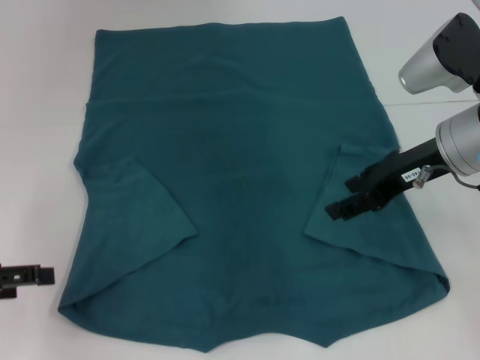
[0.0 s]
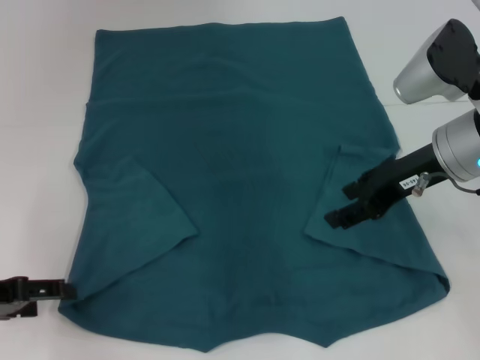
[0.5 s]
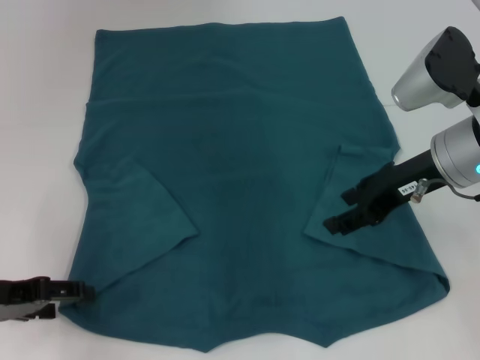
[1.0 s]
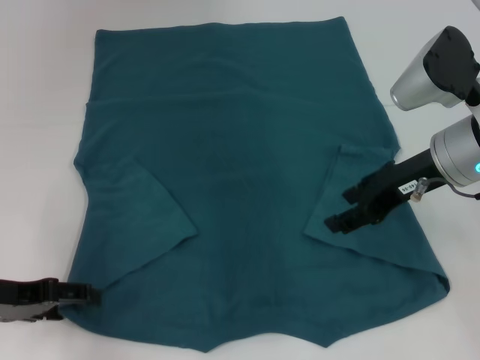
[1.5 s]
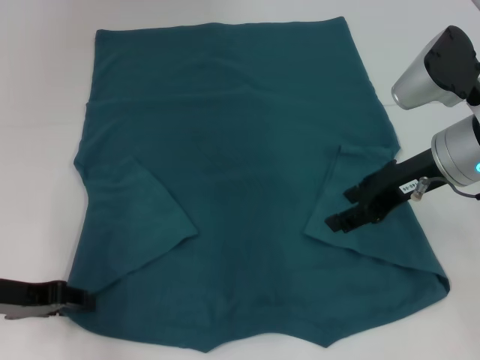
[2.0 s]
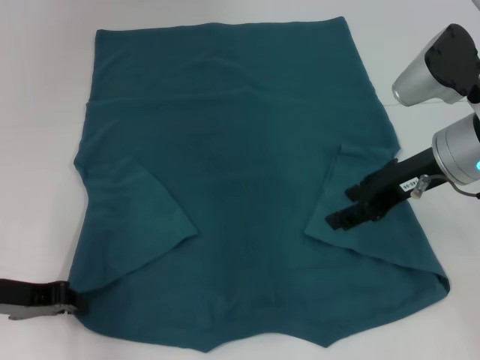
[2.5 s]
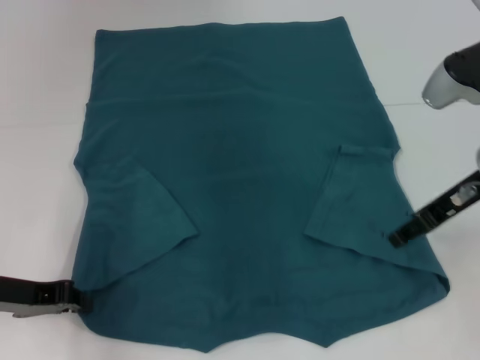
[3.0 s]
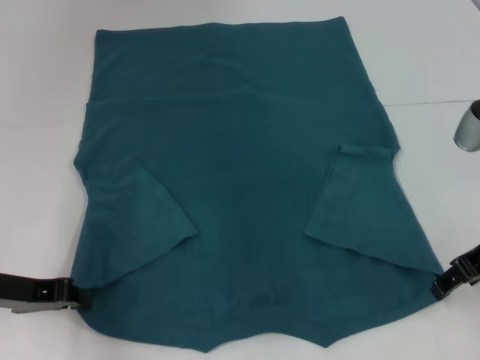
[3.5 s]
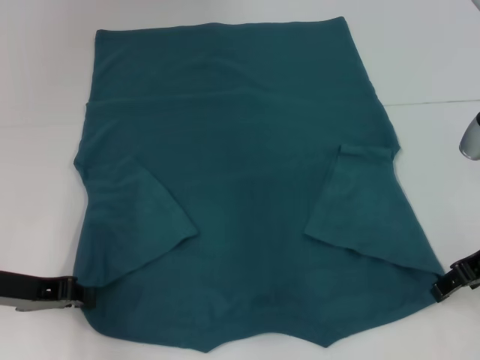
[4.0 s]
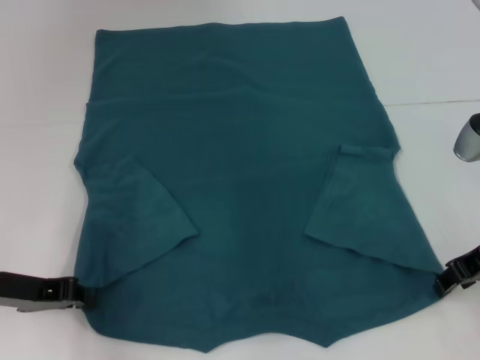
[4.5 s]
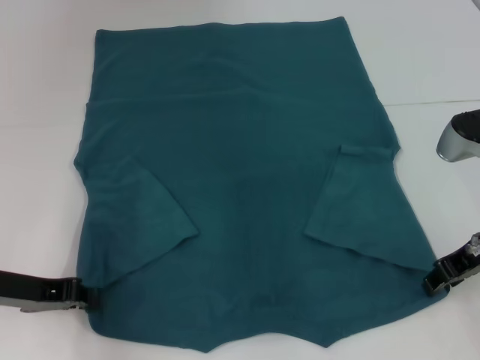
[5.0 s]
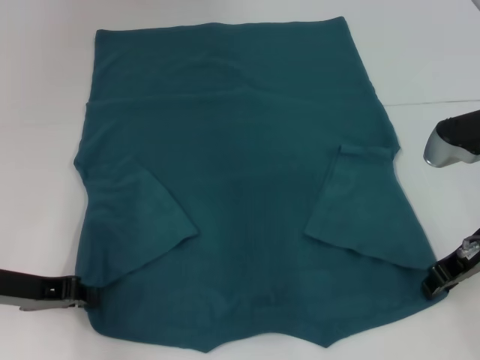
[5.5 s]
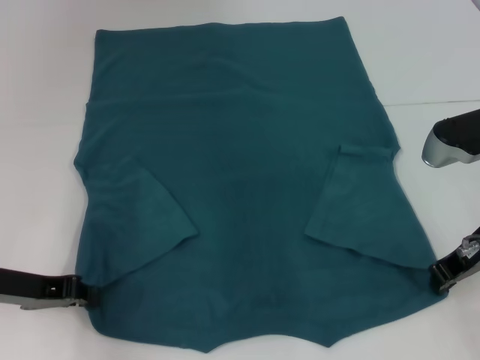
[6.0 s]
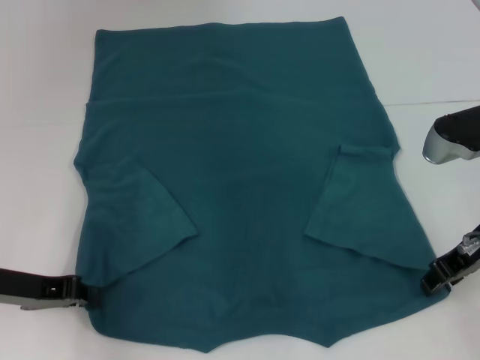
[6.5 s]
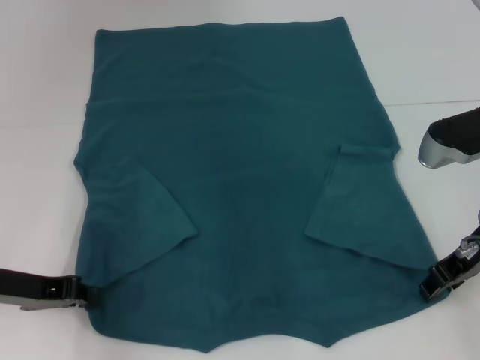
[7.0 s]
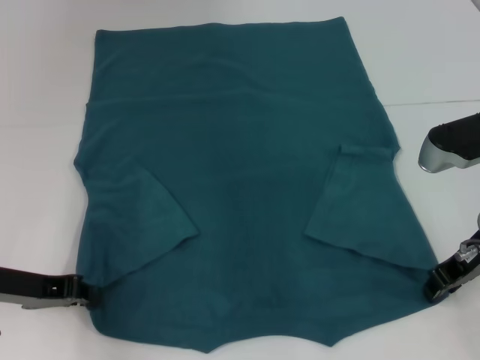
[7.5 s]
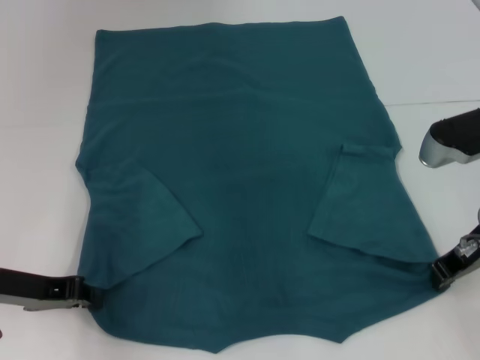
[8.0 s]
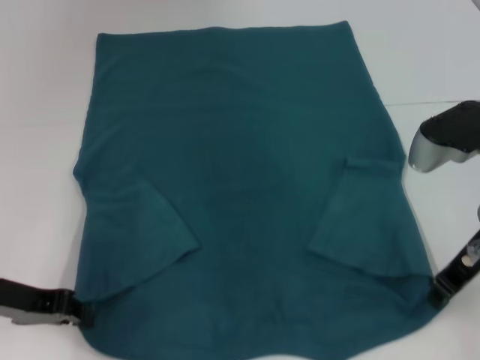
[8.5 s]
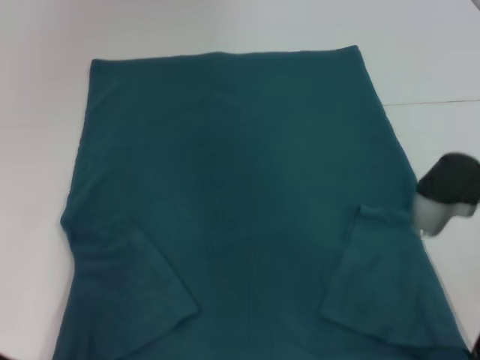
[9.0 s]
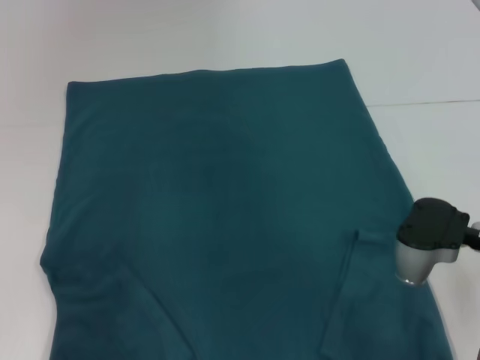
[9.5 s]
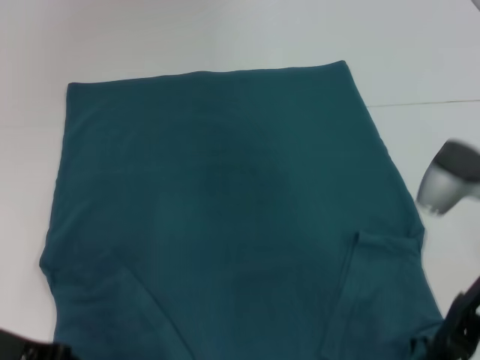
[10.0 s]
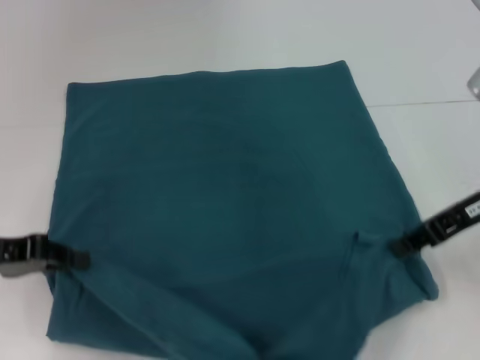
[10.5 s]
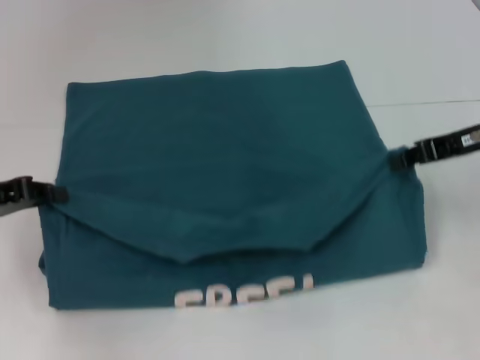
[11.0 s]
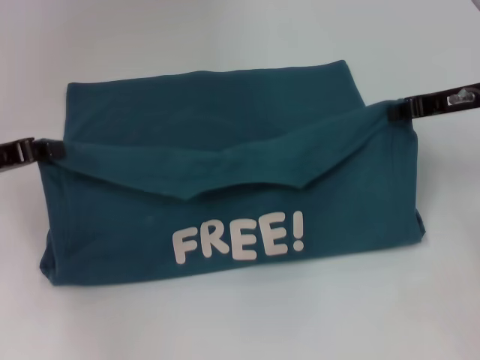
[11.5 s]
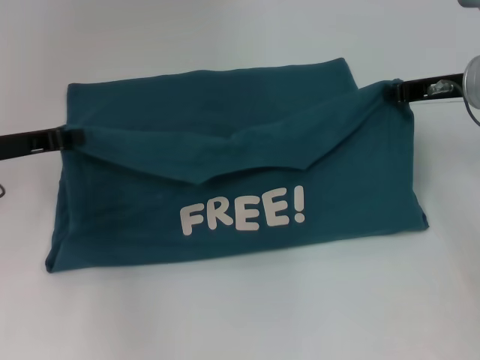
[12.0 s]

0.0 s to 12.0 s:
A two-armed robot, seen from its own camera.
Step, 0.0 to 2.5 s: Grab the bottom left corner with your left hand.
Step, 3.0 to 8.0 s: Grab the bottom right corner with your right hand.
0.0 to 2.0 s: The left gripper is displaced to the right by some 5 cm.
2.0 to 4.0 s: The right gripper is displaced to the right by some 5 cm; the left gripper closes.
4.0 to 6.0 s: The right gripper closes its fingers.
6.0 to 8.0 s: The right gripper opens, then closes again.
8.0 to 10.0 s: The right gripper ends up some 5 cm from where it was.
10.0 to 12.0 s: The two grippers go roughly 10 cm forward.

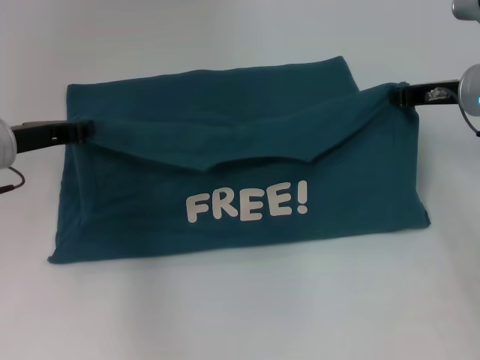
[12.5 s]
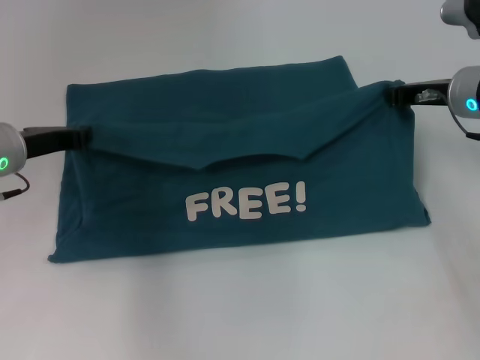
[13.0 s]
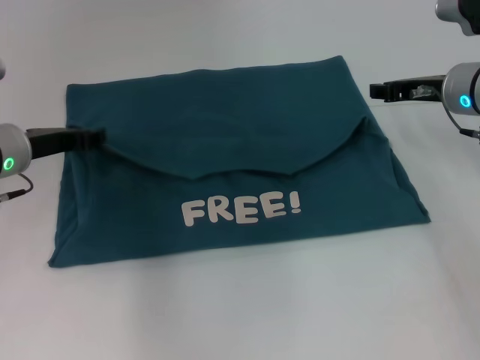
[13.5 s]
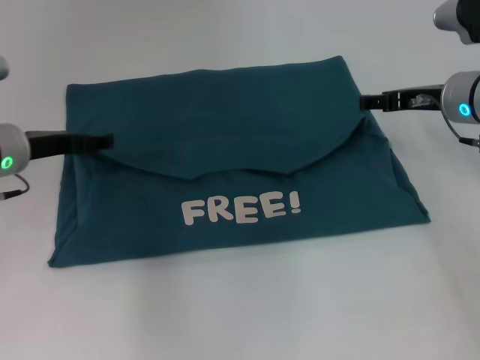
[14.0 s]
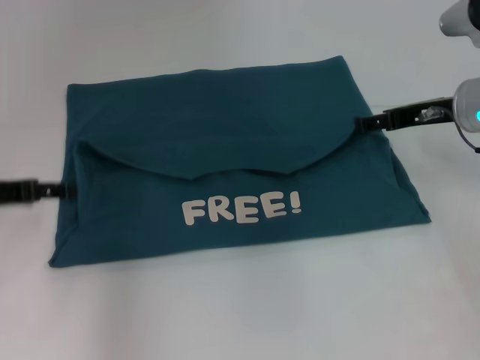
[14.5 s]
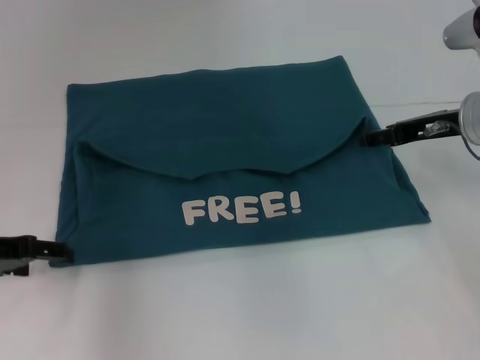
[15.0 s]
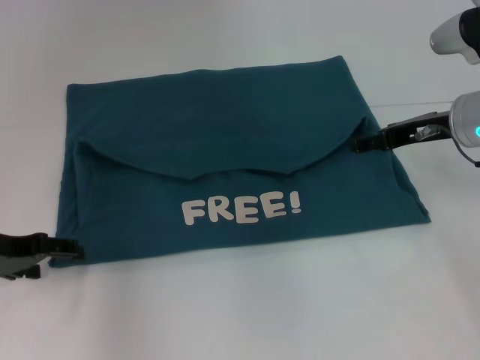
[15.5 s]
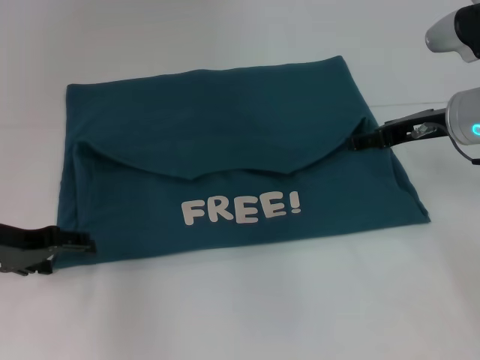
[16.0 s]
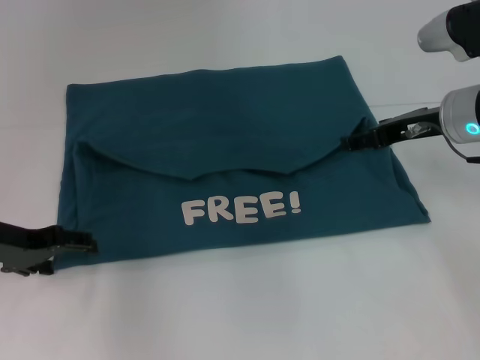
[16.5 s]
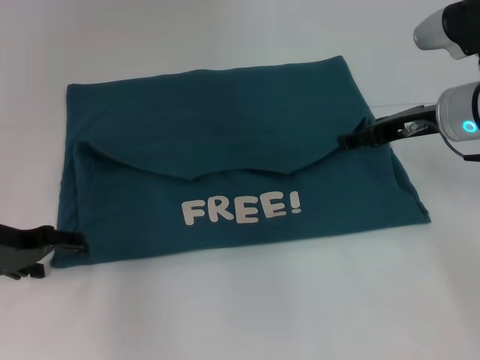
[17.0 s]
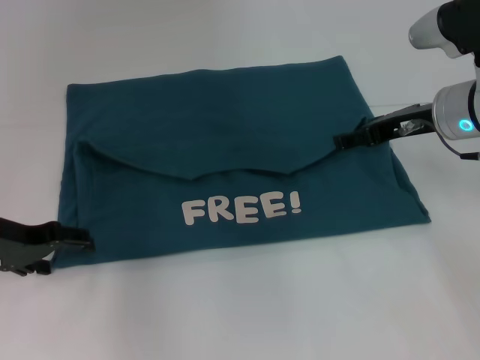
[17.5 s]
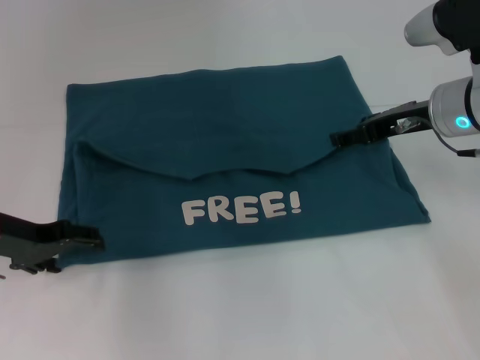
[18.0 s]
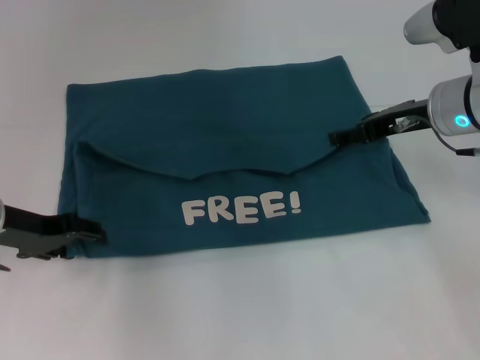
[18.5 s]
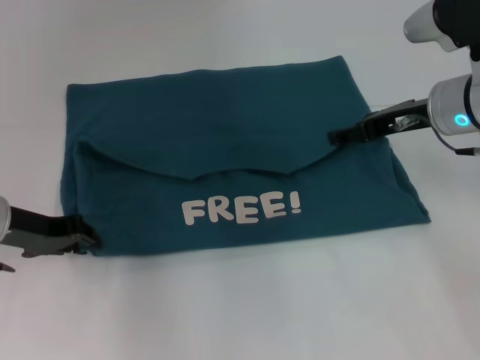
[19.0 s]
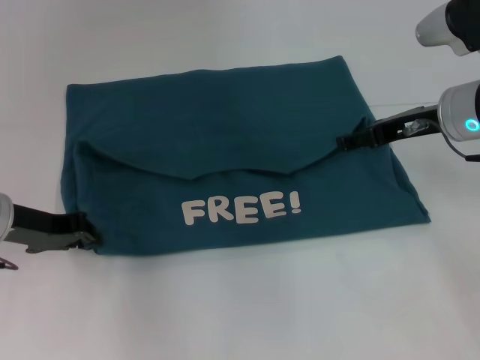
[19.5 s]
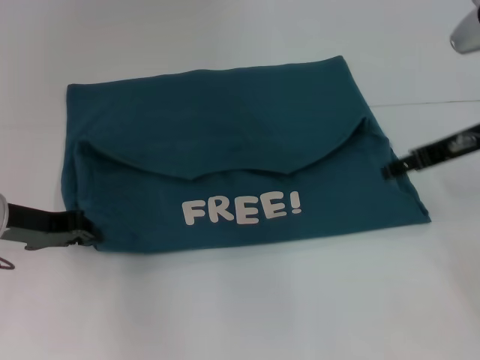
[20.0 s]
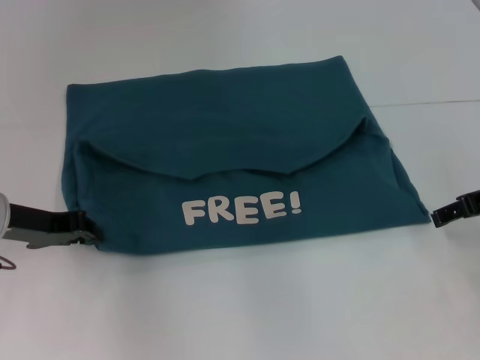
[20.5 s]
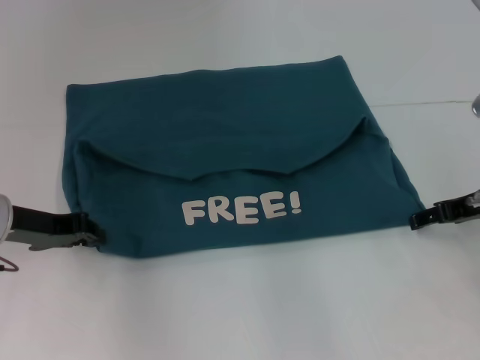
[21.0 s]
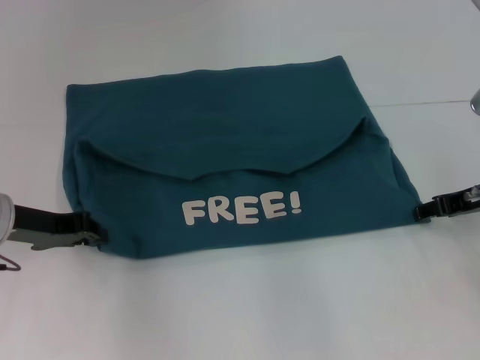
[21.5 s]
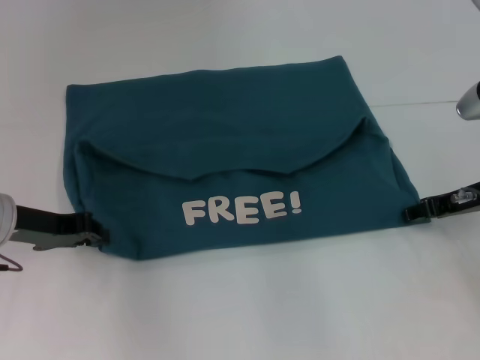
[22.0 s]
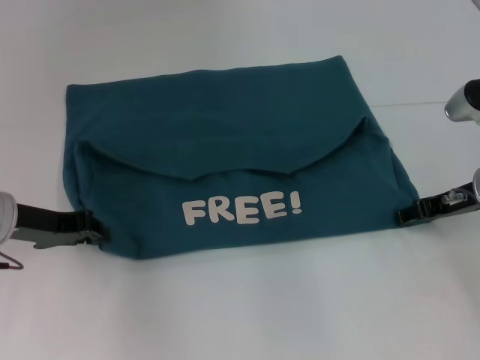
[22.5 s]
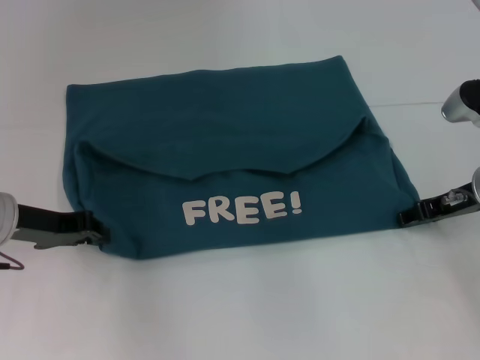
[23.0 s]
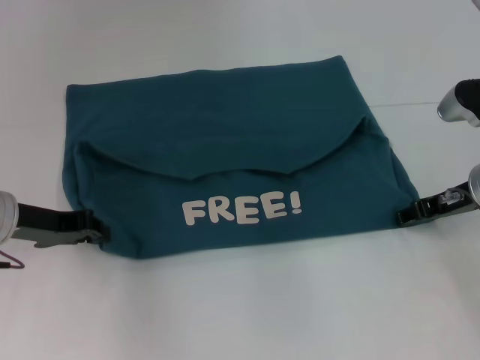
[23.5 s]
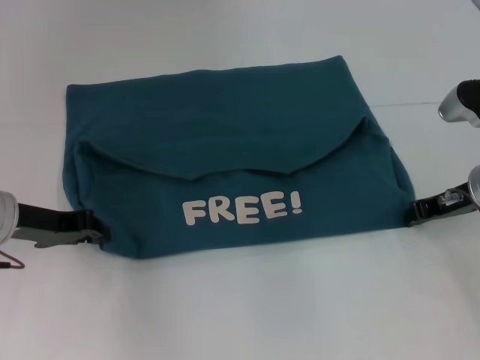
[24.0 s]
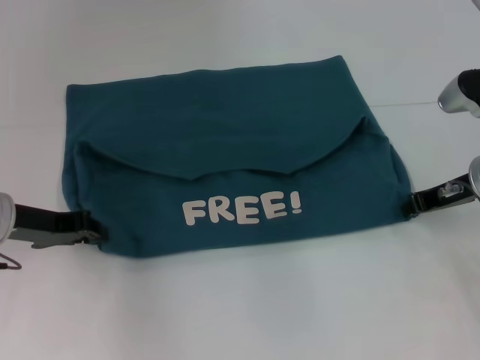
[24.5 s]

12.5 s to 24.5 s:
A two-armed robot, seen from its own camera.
12.5 to 14.5 s: The left gripper moves roughly 5 cm, and opens, while the right gripper opens its fingers.
16.5 to 18.5 s: The grippers move only a little.
18.5 to 20.5 s: The right gripper is displaced to the right and backward by roughly 10 cm. The left gripper closes.
20.5 to 22.5 s: The right gripper is displaced downward by some 5 cm.
22.5 to 24.5 s: The right gripper closes its fingers.

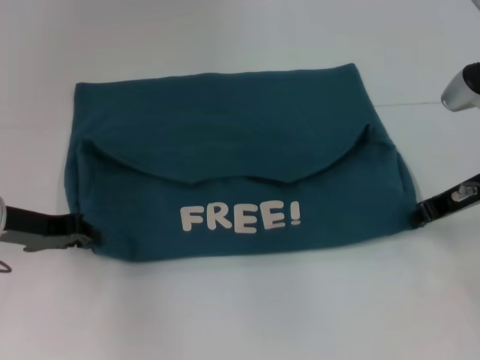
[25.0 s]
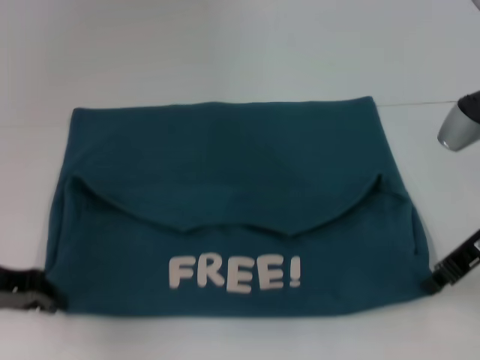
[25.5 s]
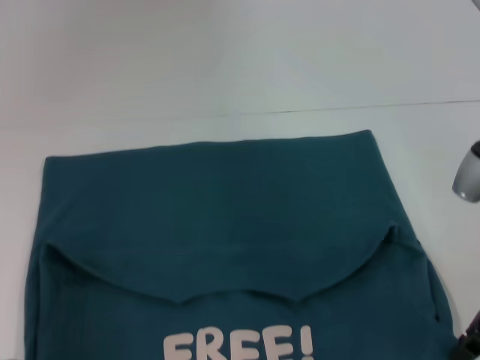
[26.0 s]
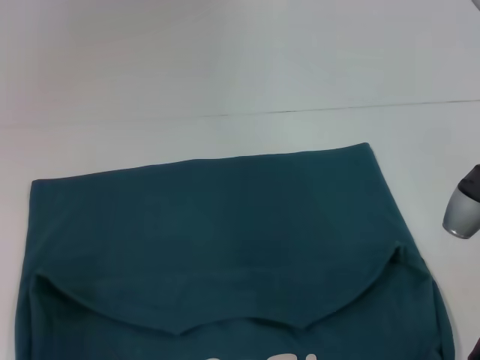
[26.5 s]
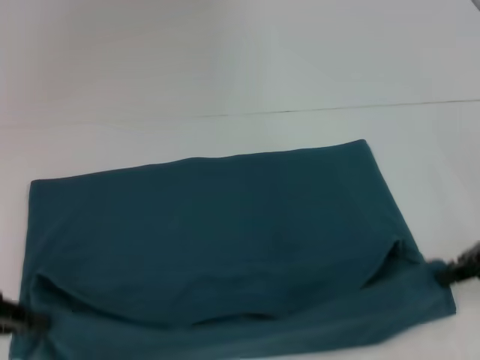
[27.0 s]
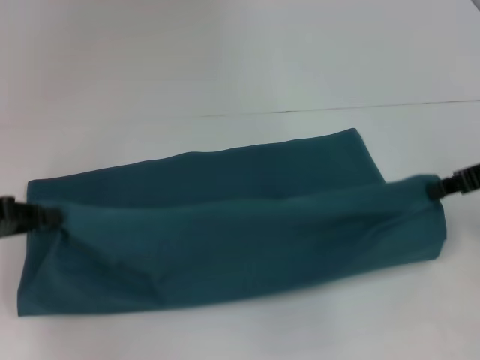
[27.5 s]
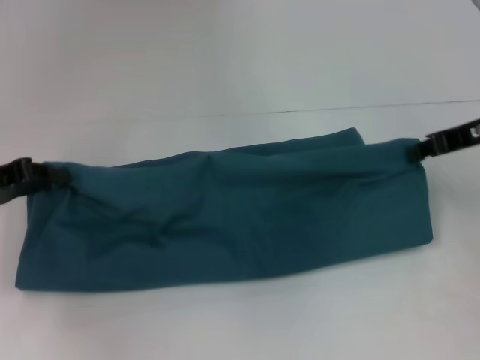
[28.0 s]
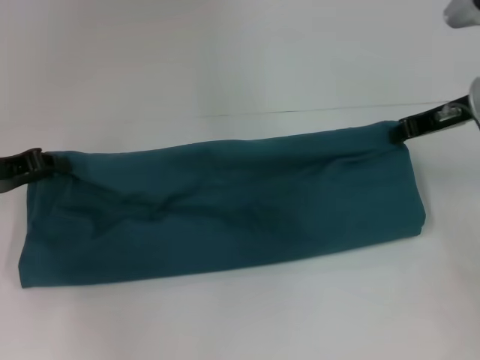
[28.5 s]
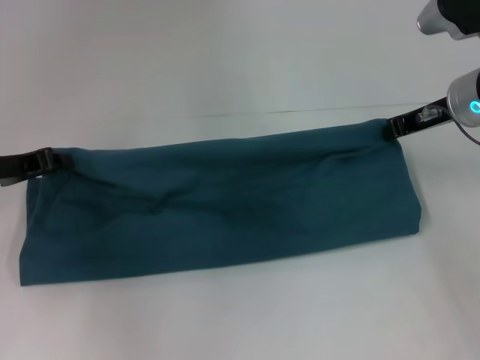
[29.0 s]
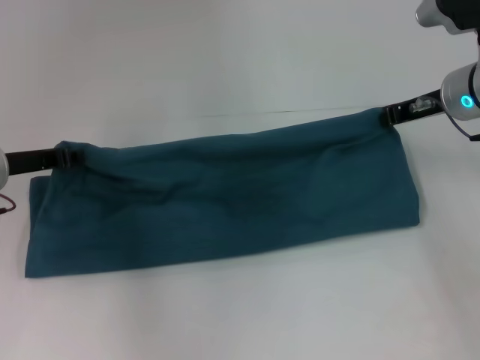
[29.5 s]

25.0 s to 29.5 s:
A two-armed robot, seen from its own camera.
25.0 to 27.0 s: The right gripper moves roughly 5 cm. The left gripper moves backward and to the left, approximately 10 cm.
27.0 to 29.5 s: The right gripper heads forward and to the left, covering some 15 cm; the left gripper moves forward and to the right, roughly 15 cm.
